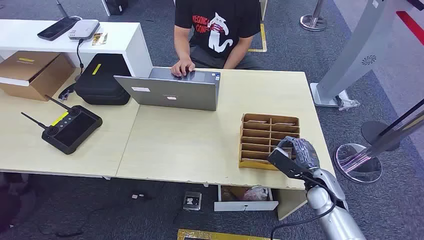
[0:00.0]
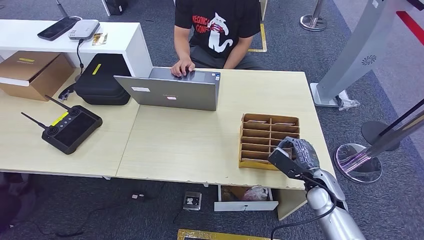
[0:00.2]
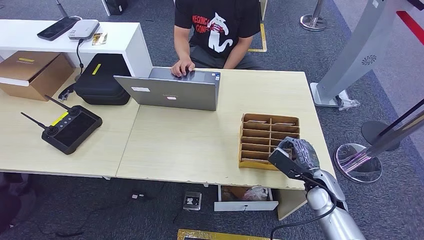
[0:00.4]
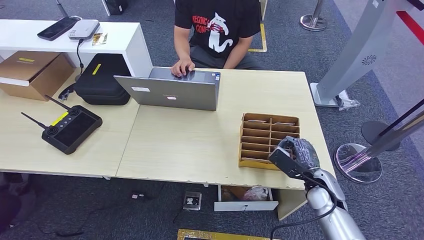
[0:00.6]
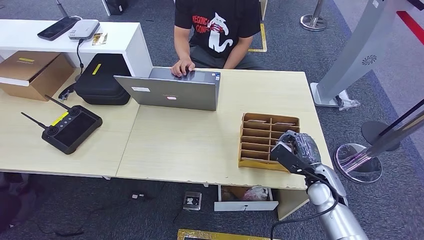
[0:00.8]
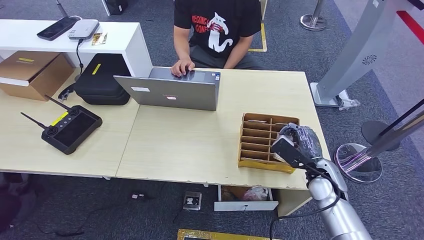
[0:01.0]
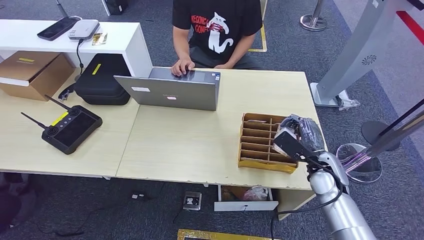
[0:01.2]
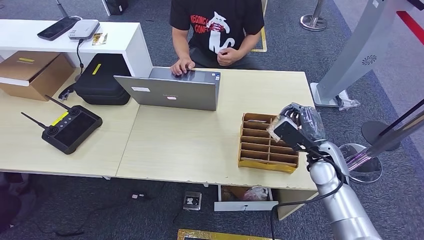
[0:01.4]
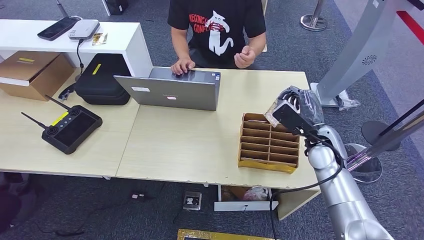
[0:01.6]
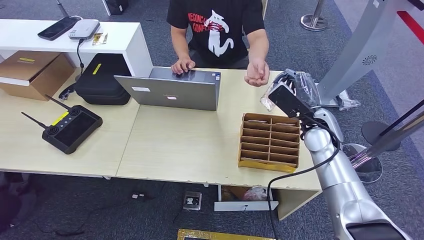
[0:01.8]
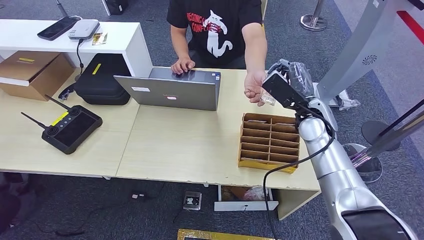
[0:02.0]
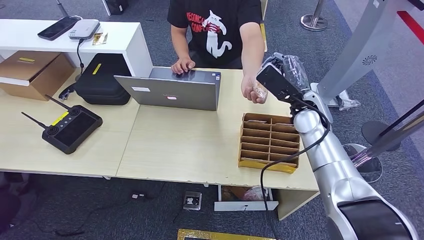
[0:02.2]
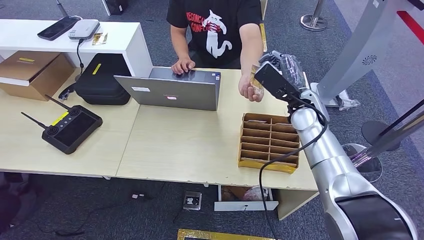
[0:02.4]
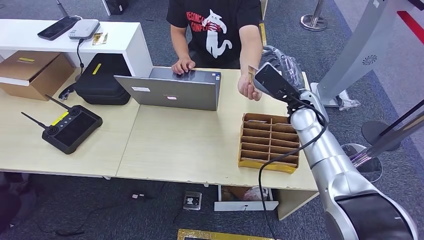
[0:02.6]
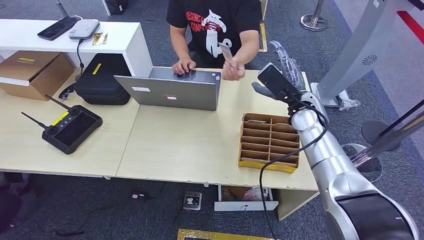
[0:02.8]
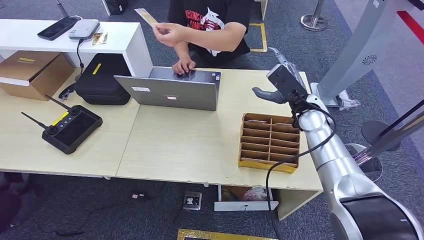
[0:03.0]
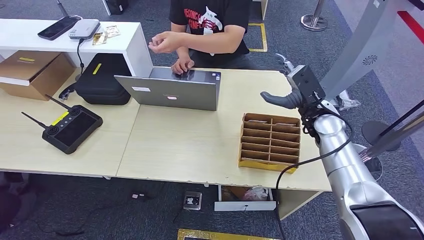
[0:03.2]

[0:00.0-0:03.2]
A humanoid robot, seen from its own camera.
Step, 0:00.0 to 0:01.4: Pick up the key card from the card box.
Step, 0:01.8 to 0:03.2: Hand the key card to the target.
0:01.6 to 0:03.2: The right hand travels forward by roughly 5 cm.
